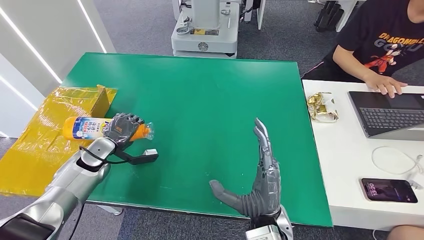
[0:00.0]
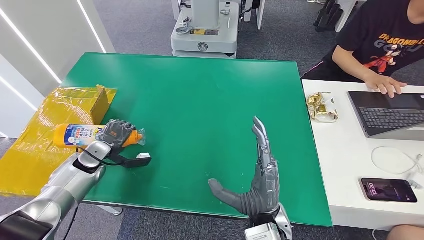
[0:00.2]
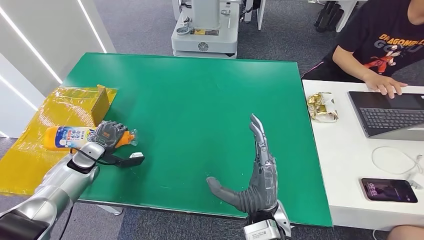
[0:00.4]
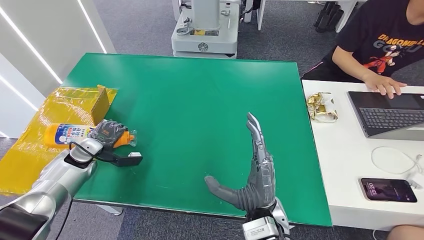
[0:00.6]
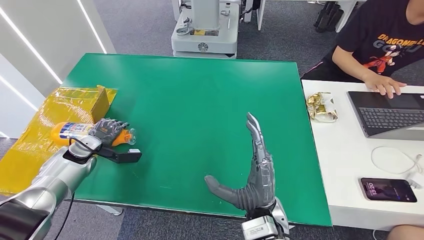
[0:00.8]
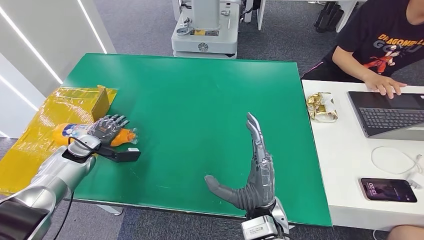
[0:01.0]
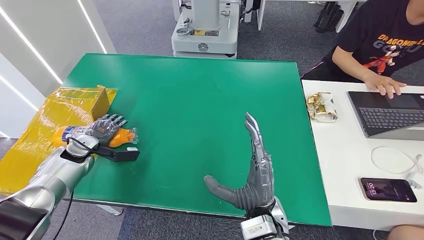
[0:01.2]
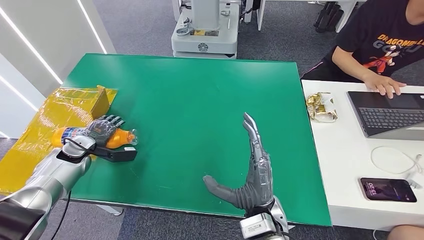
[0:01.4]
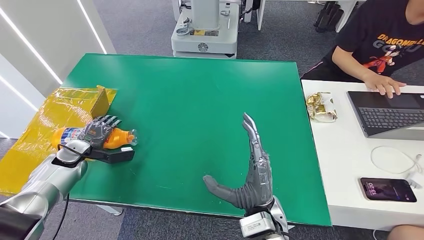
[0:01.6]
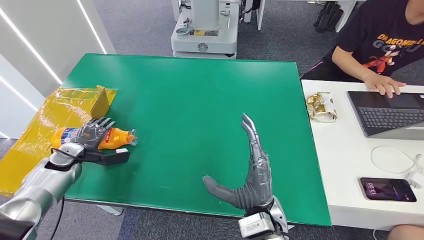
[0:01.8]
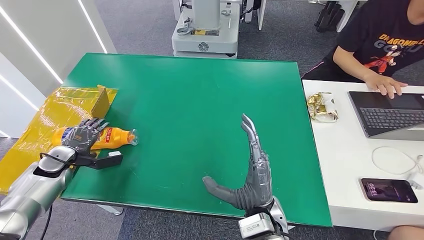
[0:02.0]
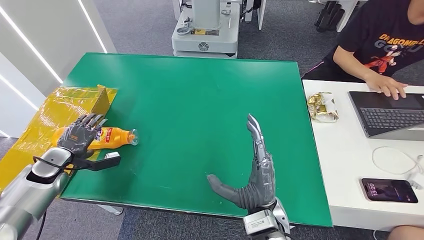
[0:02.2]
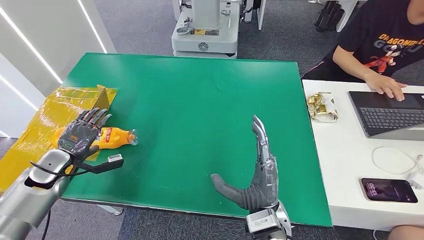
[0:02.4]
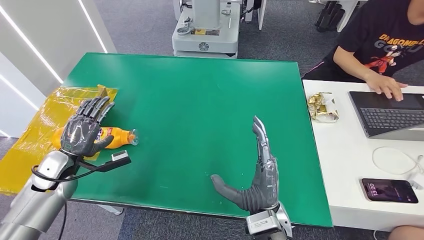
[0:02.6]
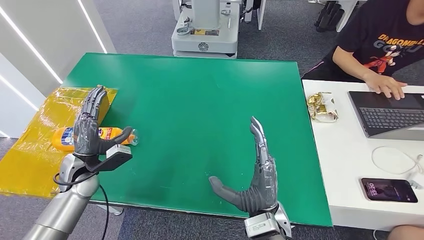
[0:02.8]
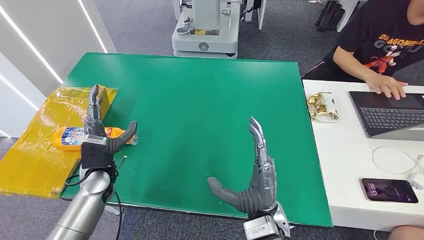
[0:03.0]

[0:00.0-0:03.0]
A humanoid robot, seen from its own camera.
Step, 0:00.0 to 0:03.0: Turn the bottle to the front side.
0:00.0 to 0:01.6: The left hand moves to the left, about 10 cm.
0:01.6 to 0:03.0: The left hand travels to the right by approximately 15 cm.
